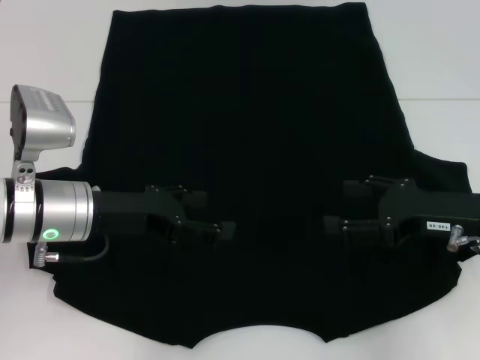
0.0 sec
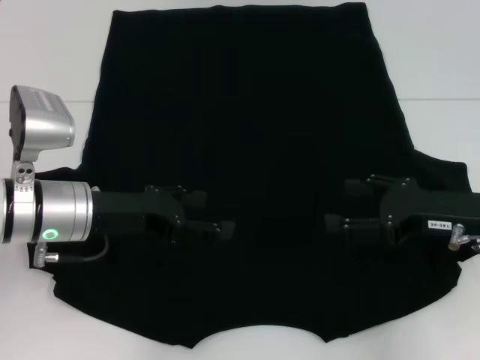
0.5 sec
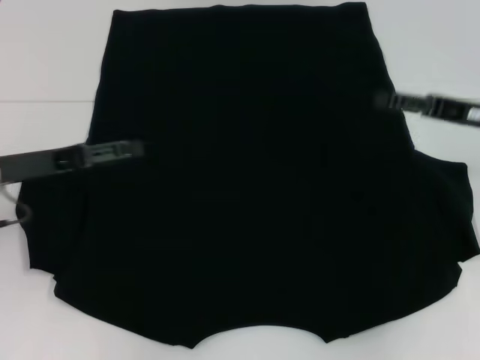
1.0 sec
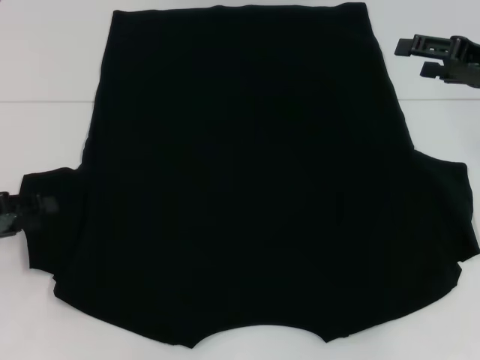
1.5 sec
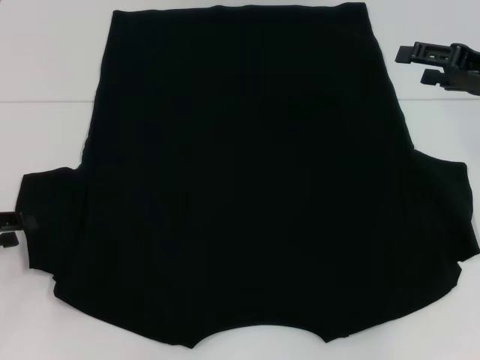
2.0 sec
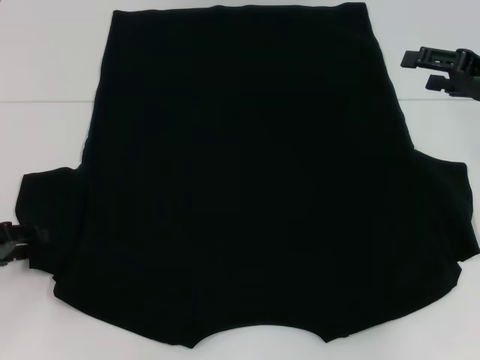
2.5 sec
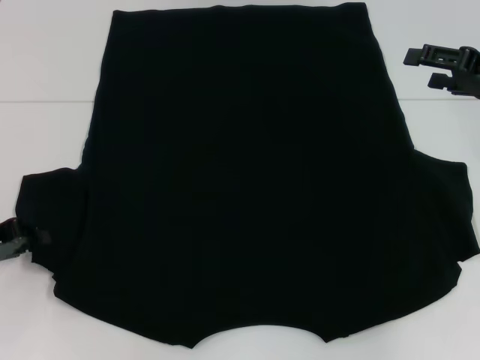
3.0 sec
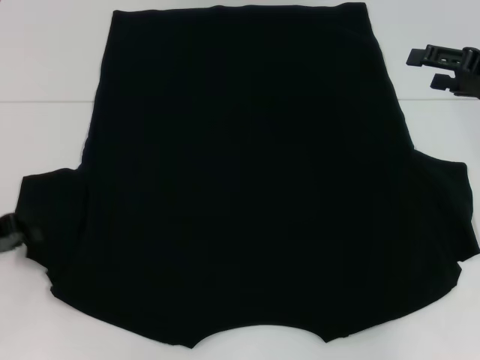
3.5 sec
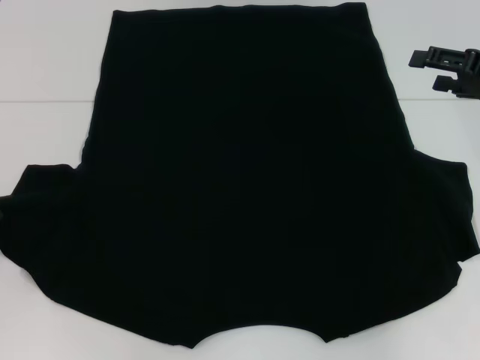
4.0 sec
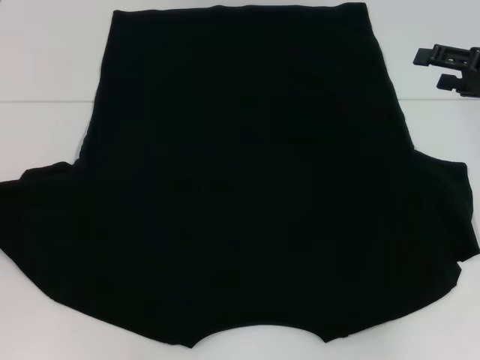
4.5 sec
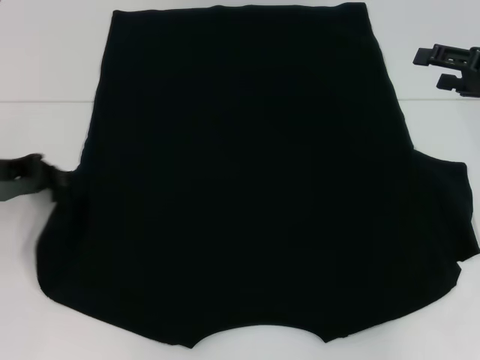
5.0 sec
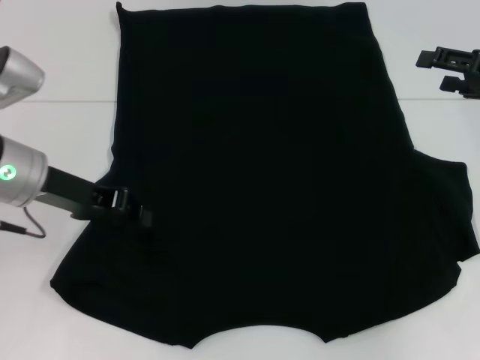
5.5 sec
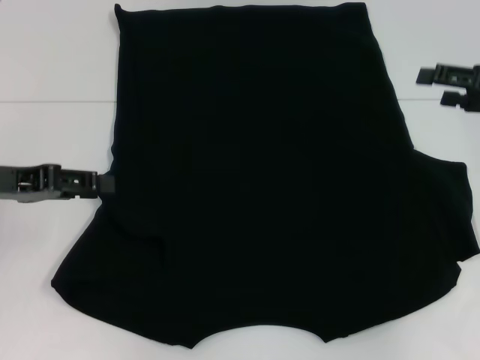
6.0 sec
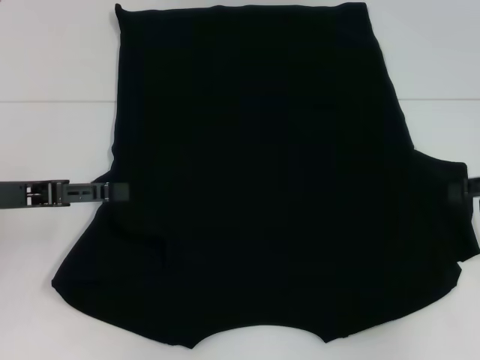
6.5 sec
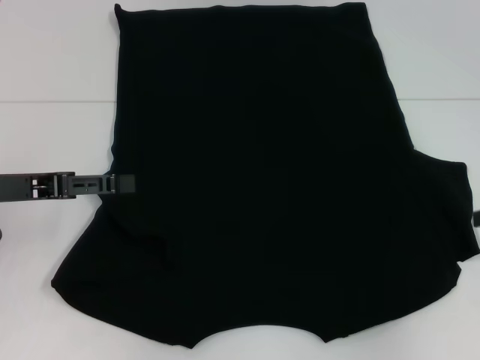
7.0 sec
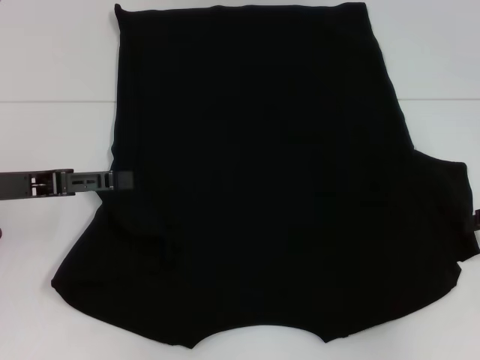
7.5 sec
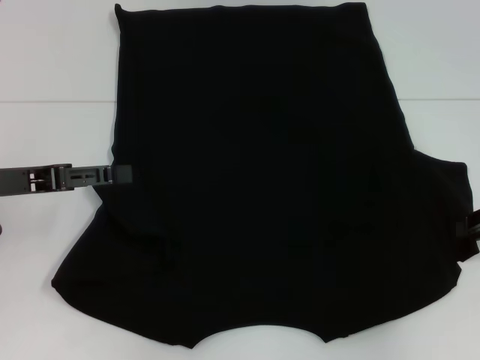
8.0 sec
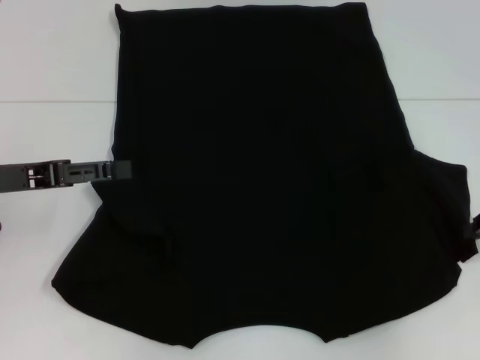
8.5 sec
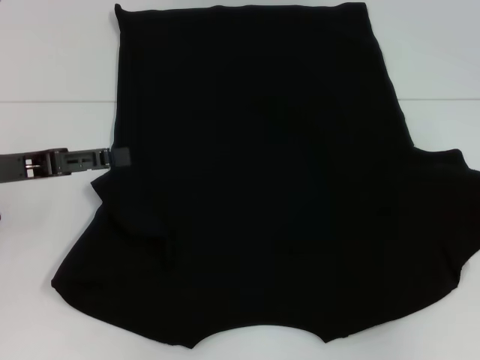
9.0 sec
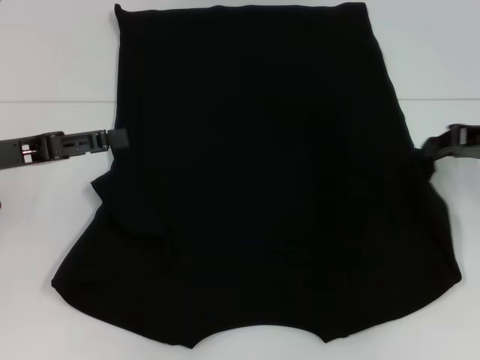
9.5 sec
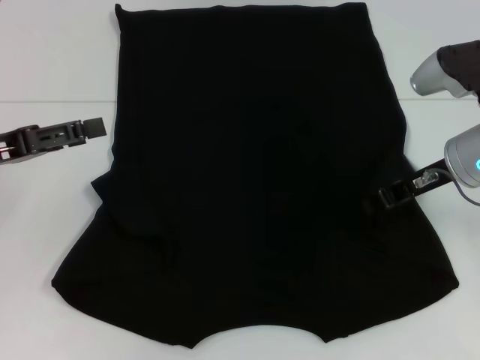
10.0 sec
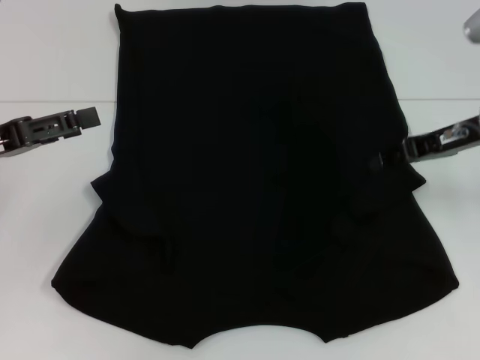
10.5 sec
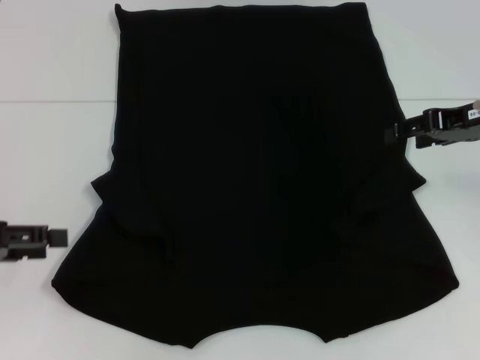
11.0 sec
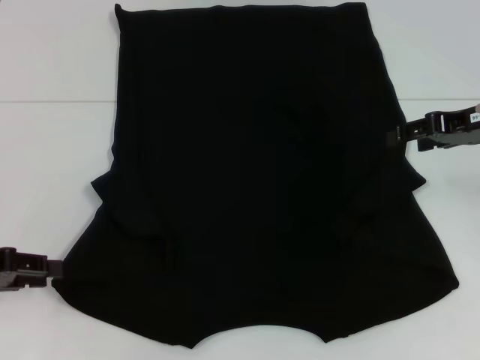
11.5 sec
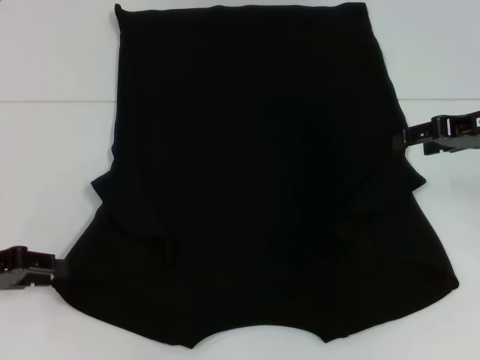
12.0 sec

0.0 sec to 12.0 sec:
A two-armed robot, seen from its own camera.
Step, 0.0 sec to 5.5 sec: Fold the bottom left sleeve with your left hand.
Step, 6.0 sec to 10.0 sec: Fold the bottom right sleeve with your right hand.
0.0 sec to 2.0 sec: The right gripper shifts approximately 15 cm forward, upward and to the right. The left gripper shifts about 15 cm to the left, and closes its fingers.
2.0 sec to 4.0 sec: The left gripper closes up.
4.0 sec to 6.0 sec: The left gripper is displaced to the right and upward by approximately 10 cm.
6.0 sec to 8.0 sec: The right gripper goes about 5 cm downward, and closes. The left gripper opens its fingers.
8.0 sec to 10.0 sec: The right gripper shifts about 10 cm to the left, and closes up.
10.0 sec to 12.0 sec: The left gripper is displaced downward by roughly 5 cm, and closes up. Meanwhile the right gripper shifts some 5 cm to the right, and opens up.

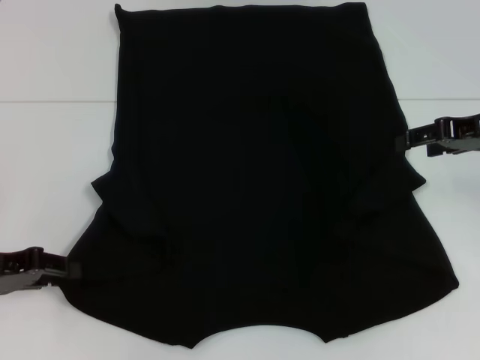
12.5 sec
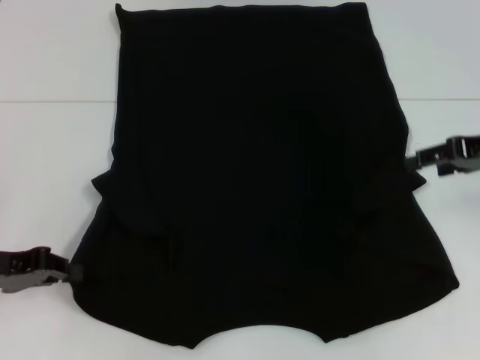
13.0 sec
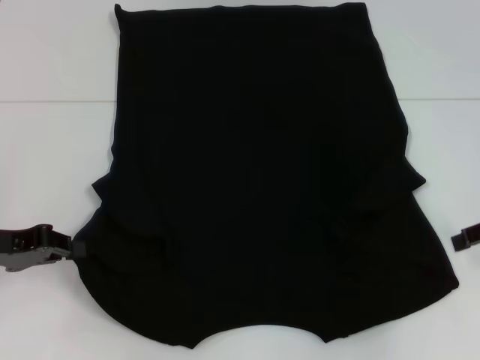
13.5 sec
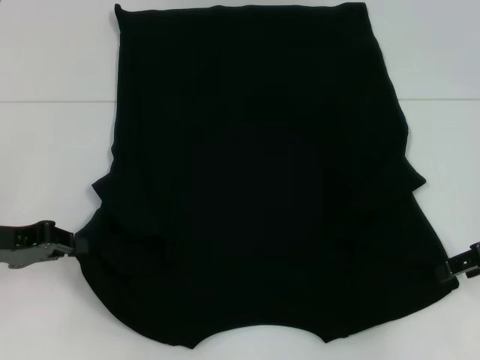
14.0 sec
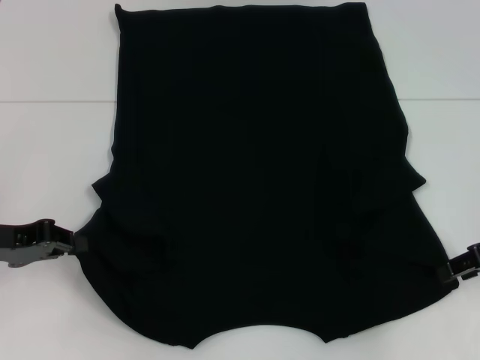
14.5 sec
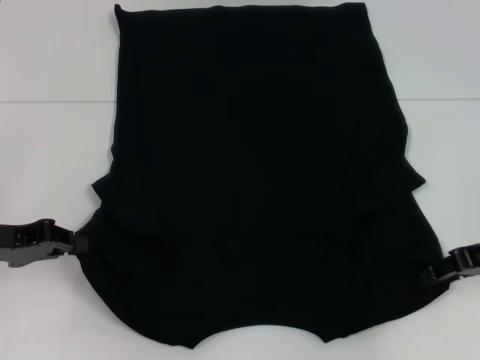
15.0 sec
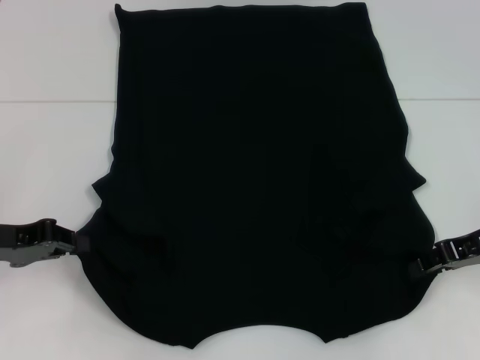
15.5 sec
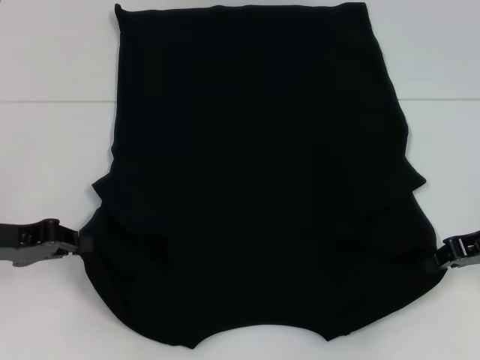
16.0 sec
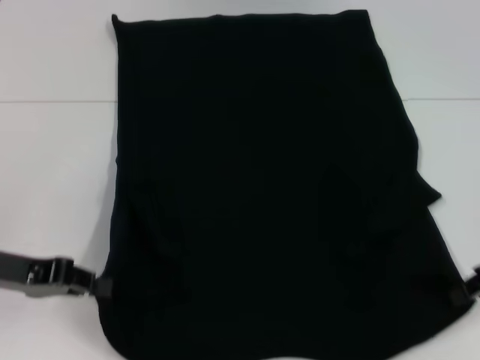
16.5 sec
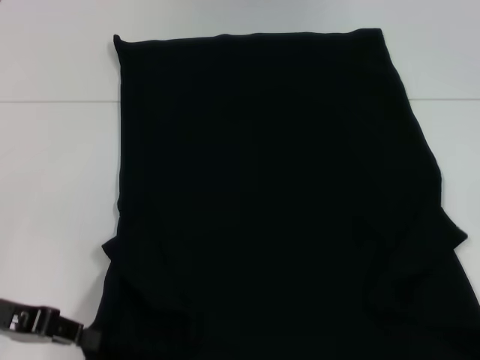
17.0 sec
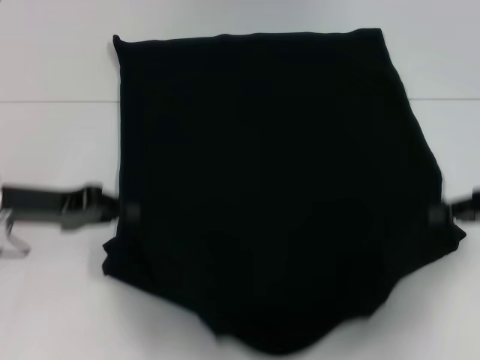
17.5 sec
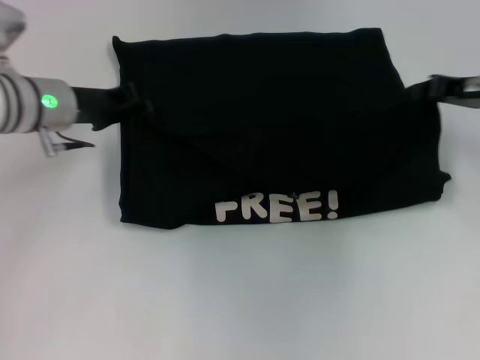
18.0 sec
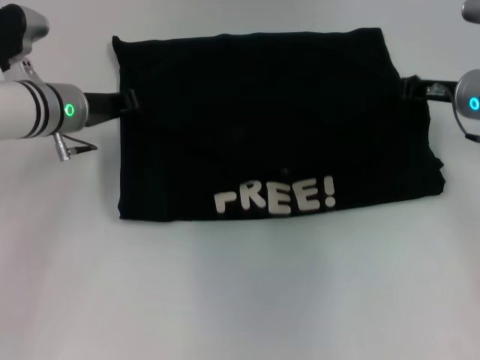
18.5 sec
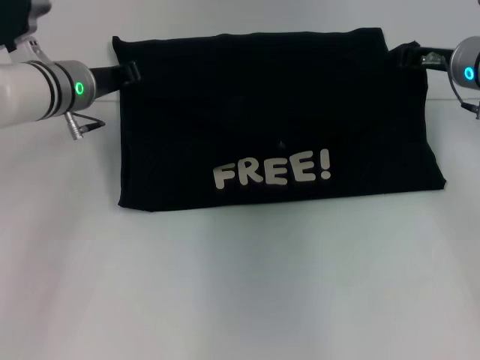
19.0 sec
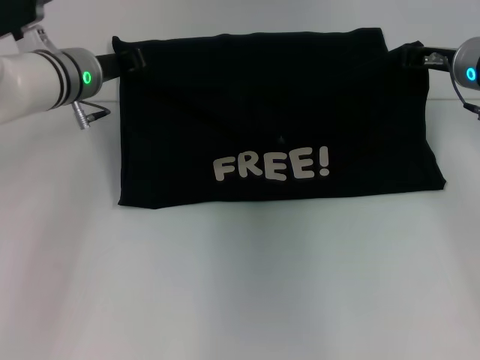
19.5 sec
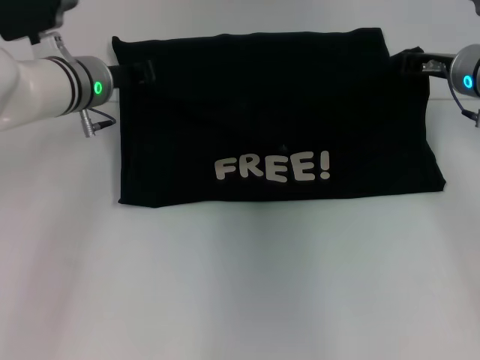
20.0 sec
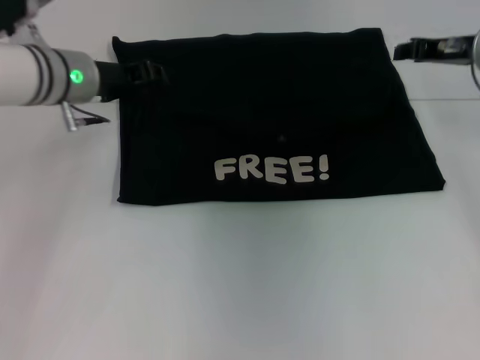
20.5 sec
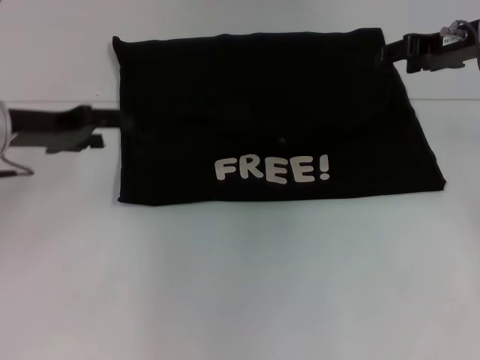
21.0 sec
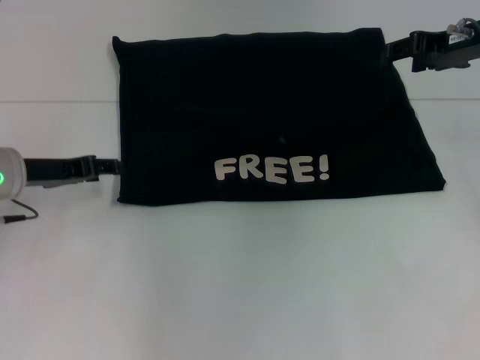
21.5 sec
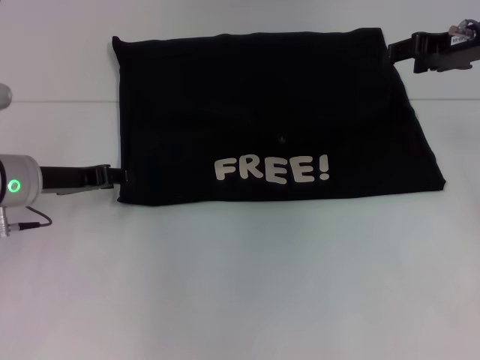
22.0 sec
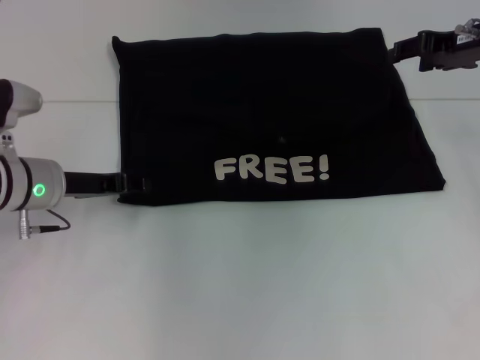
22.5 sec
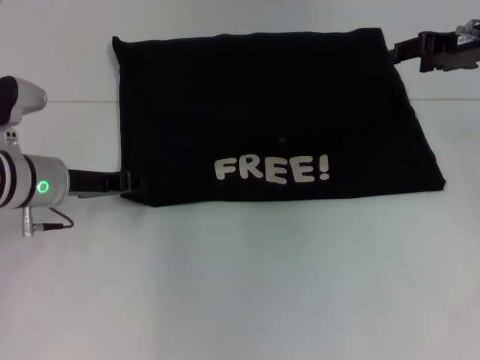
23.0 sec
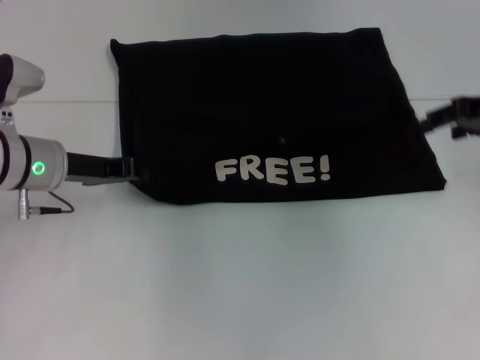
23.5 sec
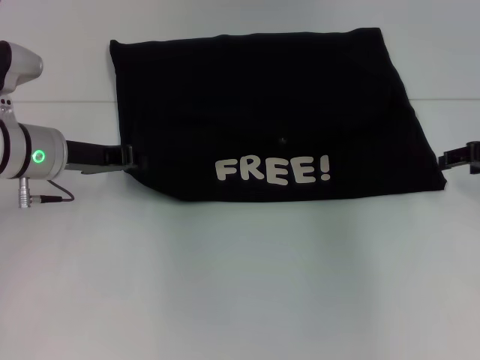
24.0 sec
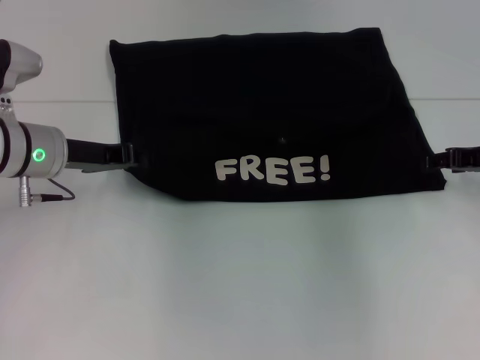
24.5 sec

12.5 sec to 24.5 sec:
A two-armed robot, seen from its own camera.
Step, 13.0 sec to 16.0 sec: Grab the bottom right corner with your right hand.
Step, 16.5 sec to 20.5 sec: Fold the clothes with your left hand.
Step, 16.5 sec to 20.5 sec: Fold the clothes with your right hand.
12.5 sec to 14.5 sec: The left gripper closes up. Meanwhile the right gripper shifts approximately 10 cm backward and downward.
14.5 sec to 16.5 sec: The right gripper closes up.
16.5 sec to 18.5 sec: The left gripper goes some 20 cm forward and to the right; the right gripper travels forward and to the left by some 15 cm.
18.5 sec to 20.5 sec: The right gripper shifts roughly 5 cm upward.
20.5 sec to 22.5 sec: The left gripper travels downward and backward by roughly 10 cm, while the right gripper opens.
22.5 sec to 24.5 sec: The right gripper is displaced downward and backward by about 10 cm. Meanwhile the left gripper closes up.

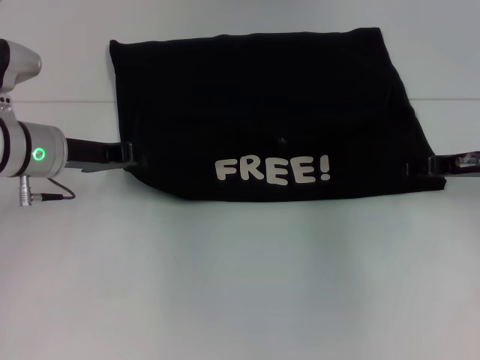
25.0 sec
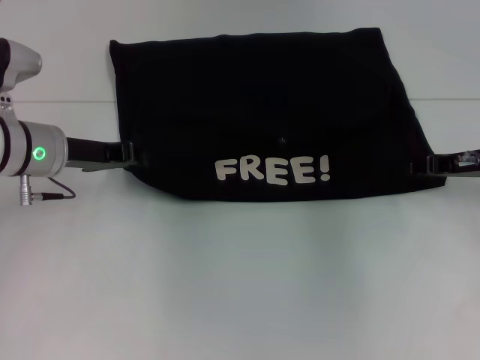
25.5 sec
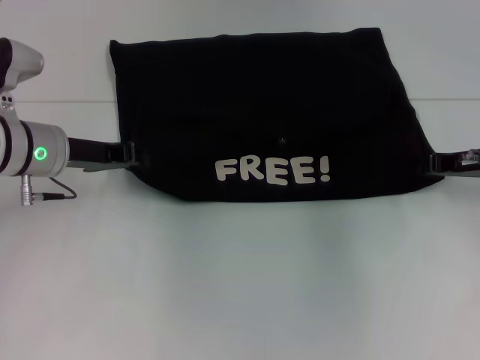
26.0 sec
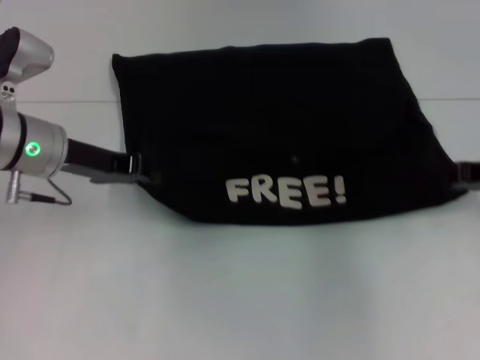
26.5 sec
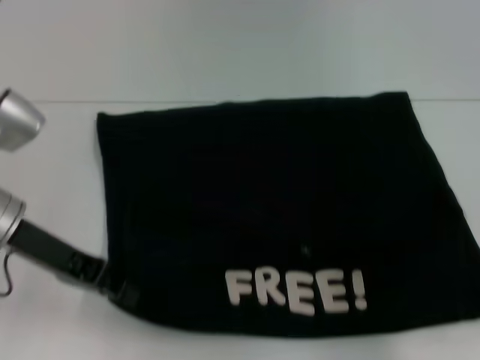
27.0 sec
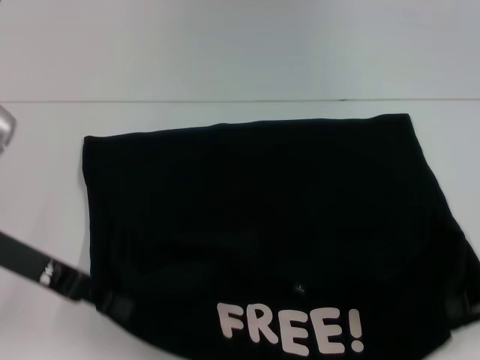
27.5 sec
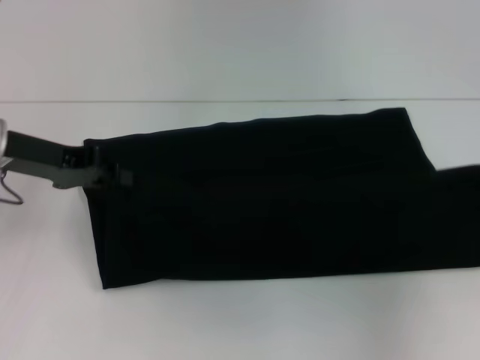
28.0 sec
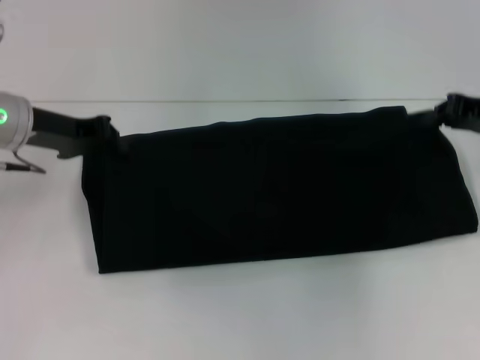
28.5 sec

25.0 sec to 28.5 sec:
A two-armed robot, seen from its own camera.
Step, 25.0 sec to 27.0 sec: Pull the clothes with your left hand.
Step, 25.0 sec to 27.0 sec: Pull the clothes with your right hand.
25.0 sec to 27.0 sec: The right gripper shifts some 10 cm backward, and closes its fingers; the left gripper travels backward by some 5 cm.
27.0 sec to 28.5 sec: The two grippers go approximately 10 cm forward.
